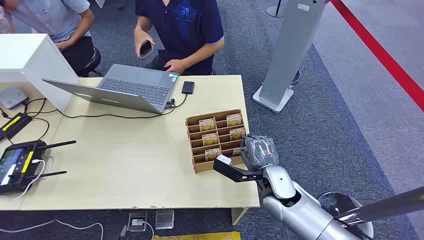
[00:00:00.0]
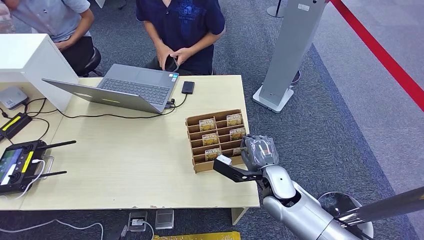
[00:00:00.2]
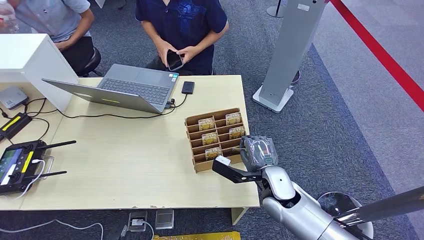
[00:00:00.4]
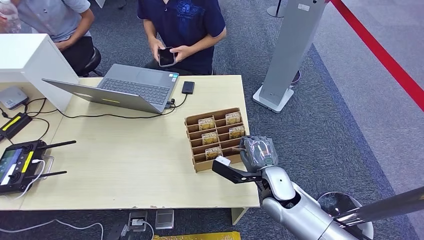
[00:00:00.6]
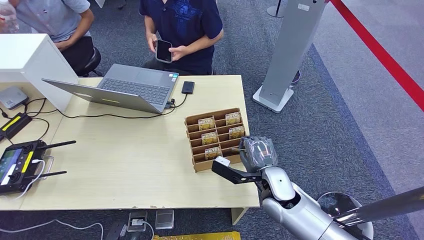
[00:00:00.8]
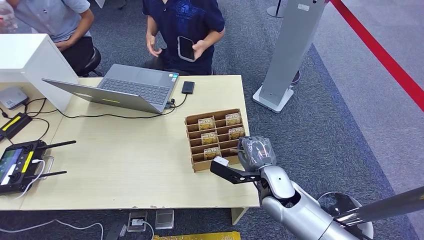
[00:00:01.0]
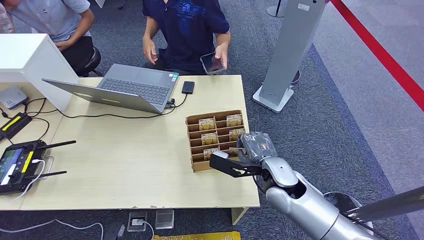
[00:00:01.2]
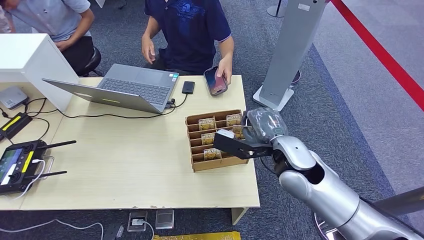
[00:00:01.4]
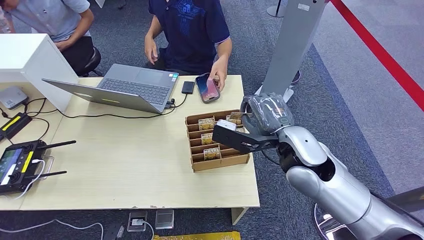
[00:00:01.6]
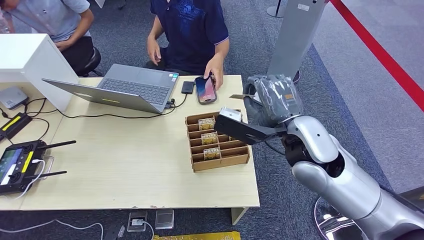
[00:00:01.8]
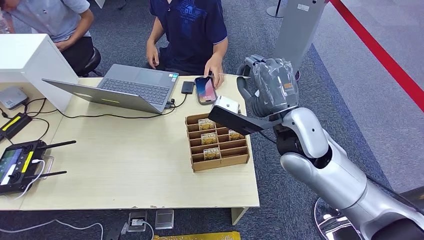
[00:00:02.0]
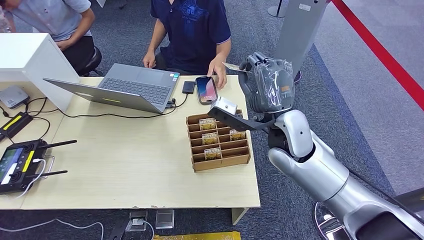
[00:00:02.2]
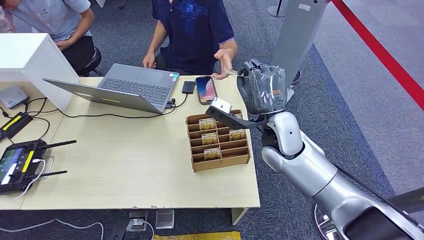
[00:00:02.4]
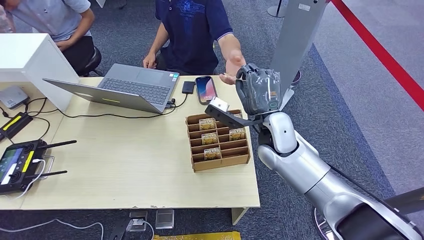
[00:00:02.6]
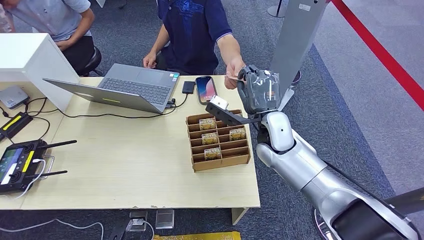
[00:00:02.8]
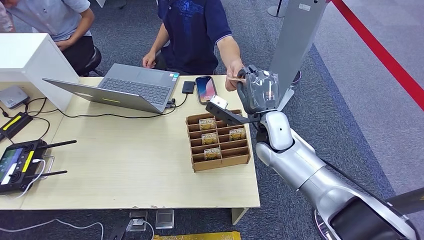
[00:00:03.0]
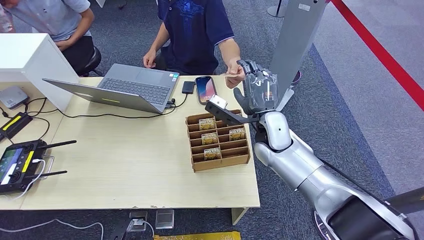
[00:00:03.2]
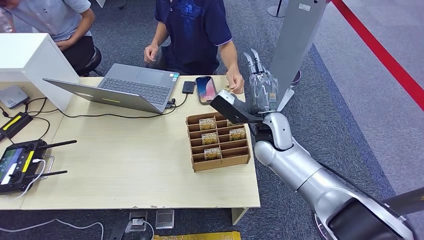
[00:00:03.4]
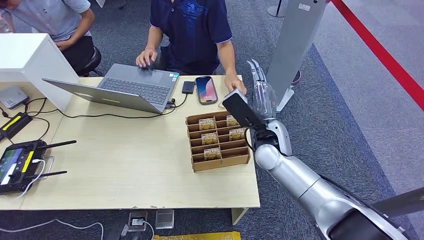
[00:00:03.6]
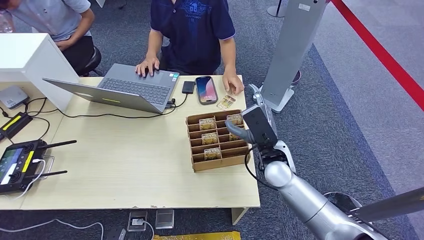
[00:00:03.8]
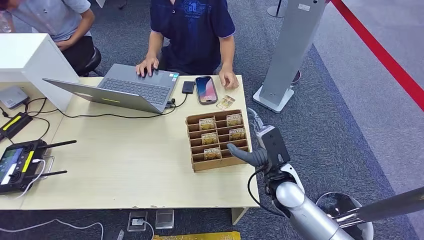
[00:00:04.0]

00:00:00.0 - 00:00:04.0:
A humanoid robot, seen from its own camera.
Step, 00:00:00.0 - 00:00:01.6: Pick up the key card from the card box.
Step, 00:00:02.0 - 00:00:03.8: Hand the key card to the target.
00:00:01.4 - 00:00:02.6: The right hand heads forward, covering approximately 5 cm, and moves some 10 cm upward and comes back.
00:00:02.6 - 00:00:04.0: The right hand moves downward and backward, approximately 15 cm.

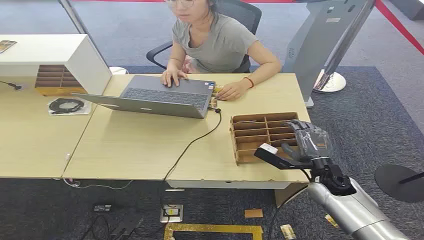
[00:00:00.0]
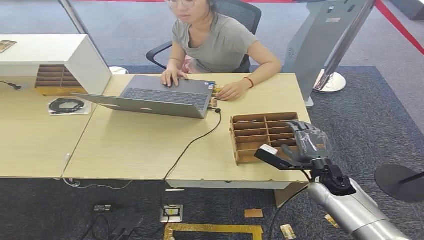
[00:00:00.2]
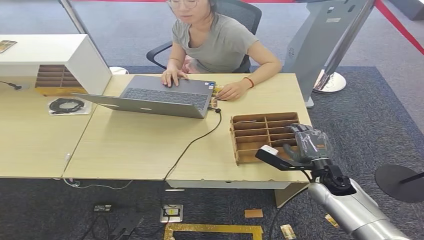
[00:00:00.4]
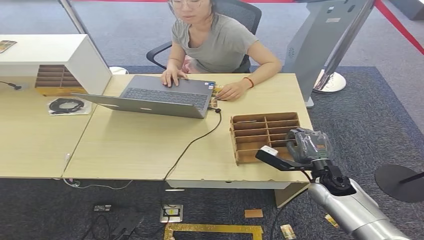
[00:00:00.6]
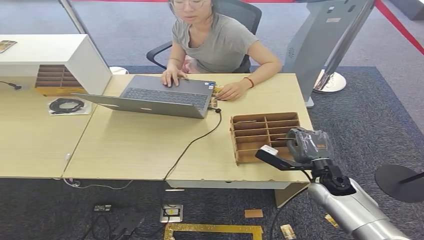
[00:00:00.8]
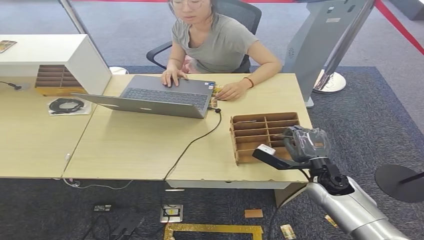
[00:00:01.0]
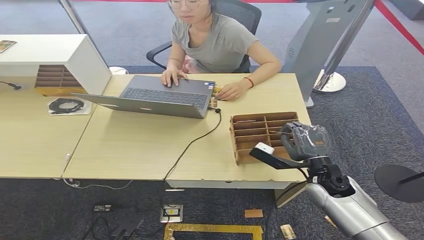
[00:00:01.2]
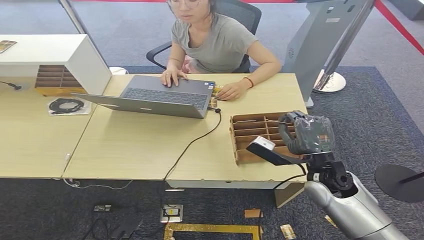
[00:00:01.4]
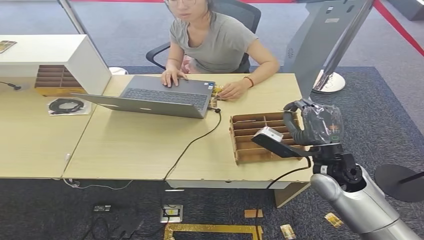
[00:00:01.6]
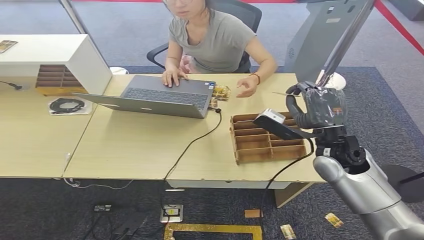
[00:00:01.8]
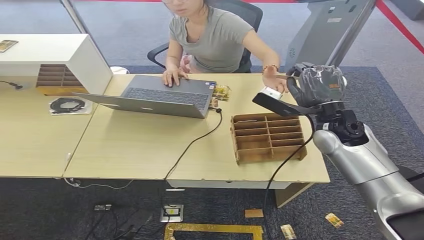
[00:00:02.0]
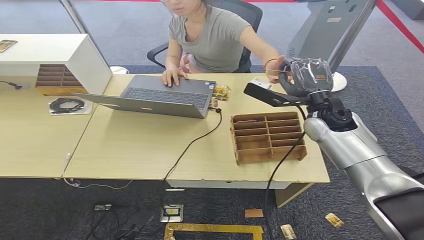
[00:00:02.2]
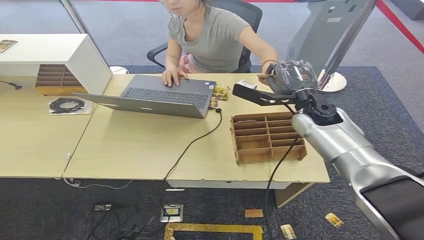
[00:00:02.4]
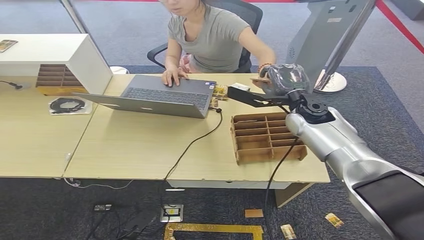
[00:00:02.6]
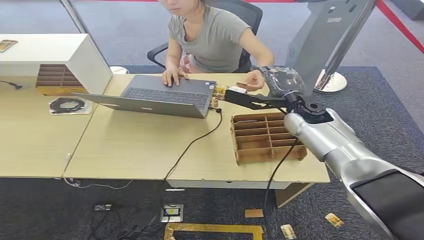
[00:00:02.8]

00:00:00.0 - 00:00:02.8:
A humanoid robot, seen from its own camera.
Step, 00:00:00.0 - 00:00:01.0: Pick up the key card from the card box.
Step, 00:00:01.2 - 00:00:02.6: Hand the key card to the target.
00:00:01.4 - 00:00:02.8: The right hand is displaced forward and upward by some 15 cm.
